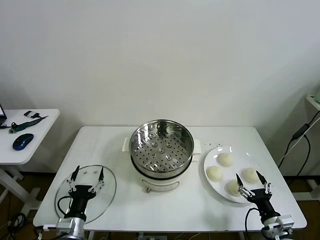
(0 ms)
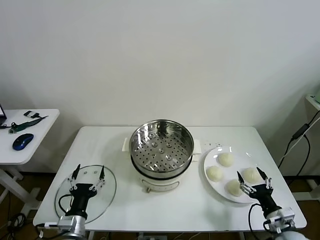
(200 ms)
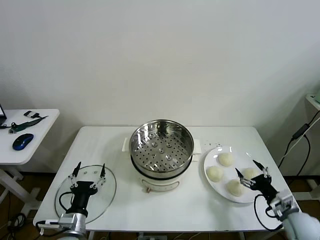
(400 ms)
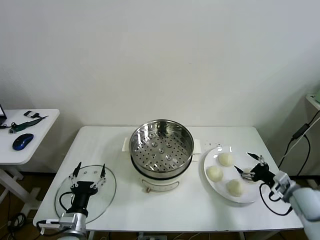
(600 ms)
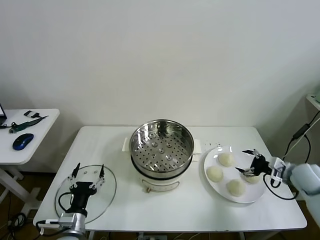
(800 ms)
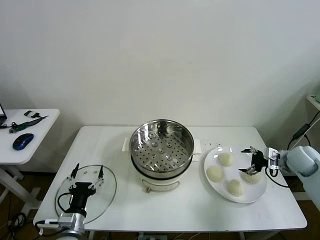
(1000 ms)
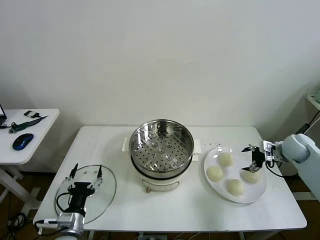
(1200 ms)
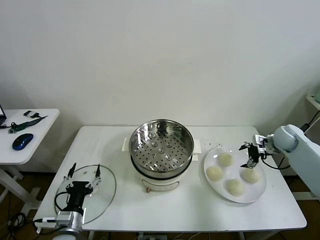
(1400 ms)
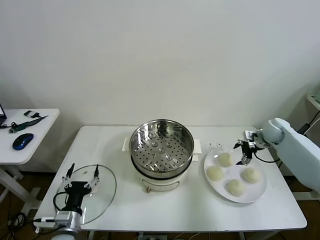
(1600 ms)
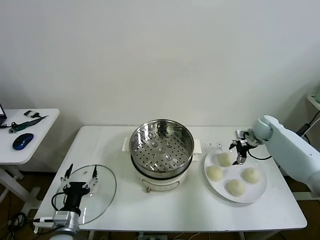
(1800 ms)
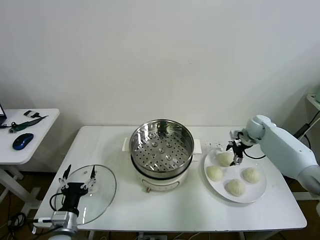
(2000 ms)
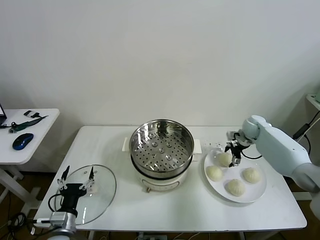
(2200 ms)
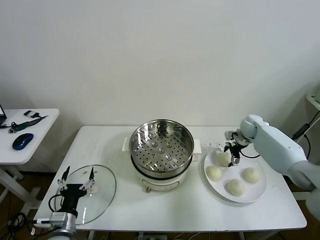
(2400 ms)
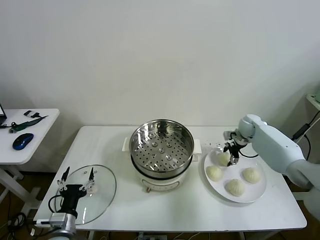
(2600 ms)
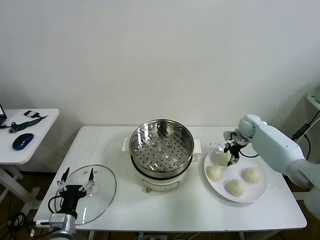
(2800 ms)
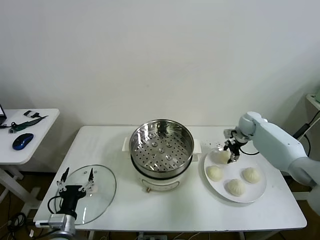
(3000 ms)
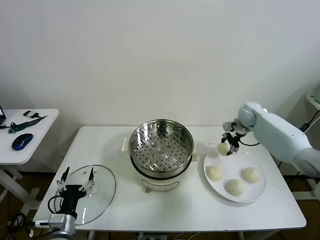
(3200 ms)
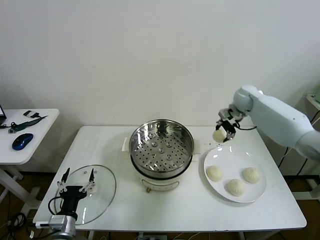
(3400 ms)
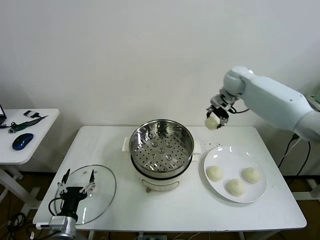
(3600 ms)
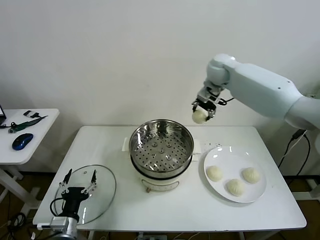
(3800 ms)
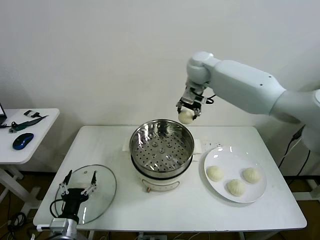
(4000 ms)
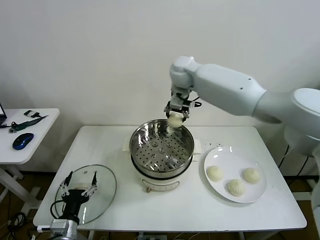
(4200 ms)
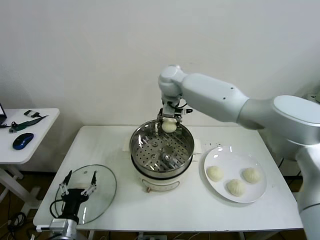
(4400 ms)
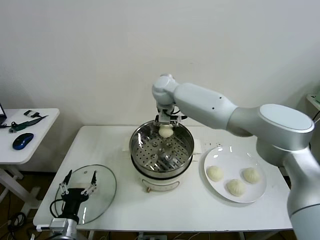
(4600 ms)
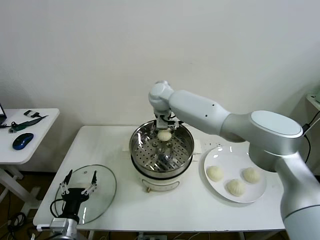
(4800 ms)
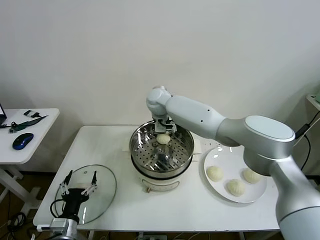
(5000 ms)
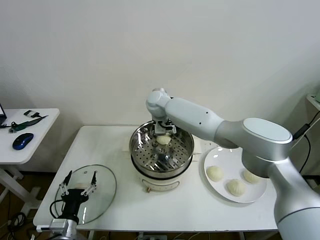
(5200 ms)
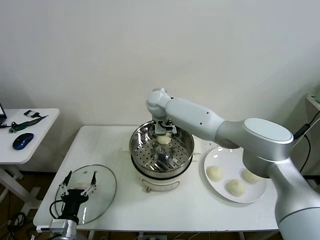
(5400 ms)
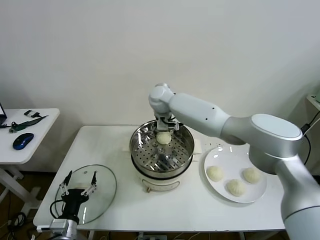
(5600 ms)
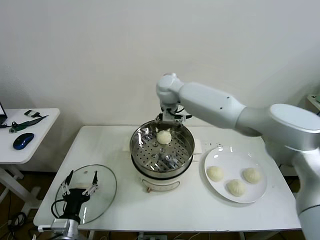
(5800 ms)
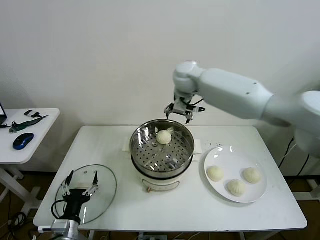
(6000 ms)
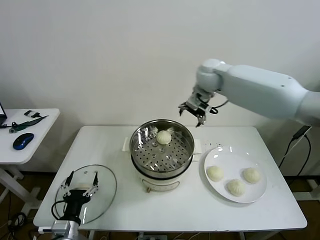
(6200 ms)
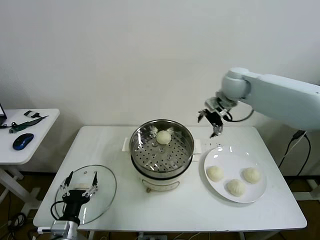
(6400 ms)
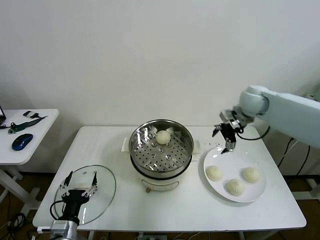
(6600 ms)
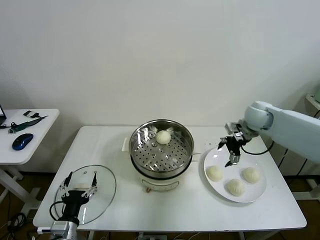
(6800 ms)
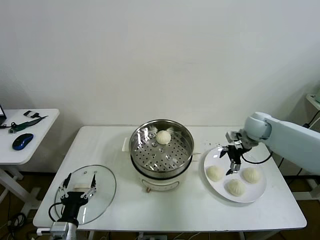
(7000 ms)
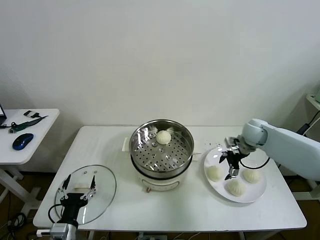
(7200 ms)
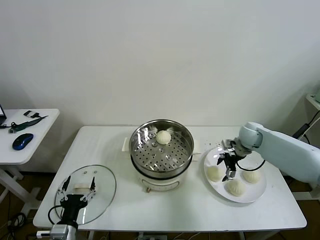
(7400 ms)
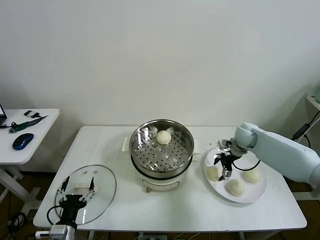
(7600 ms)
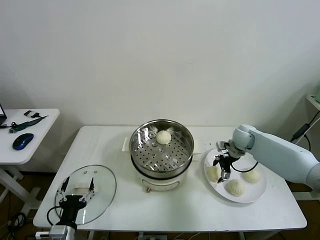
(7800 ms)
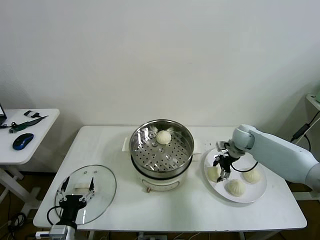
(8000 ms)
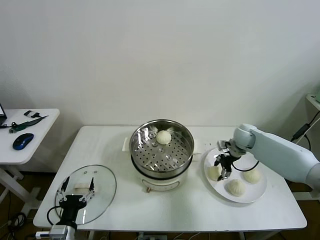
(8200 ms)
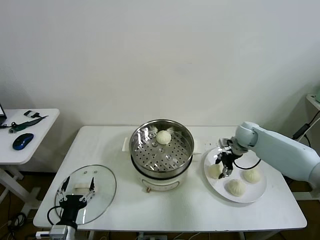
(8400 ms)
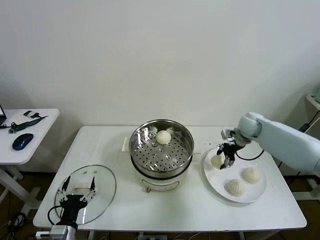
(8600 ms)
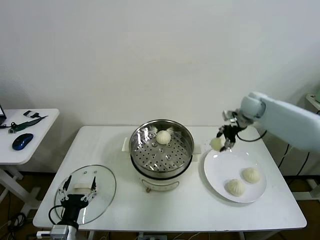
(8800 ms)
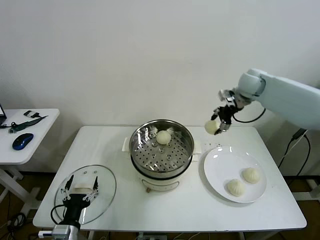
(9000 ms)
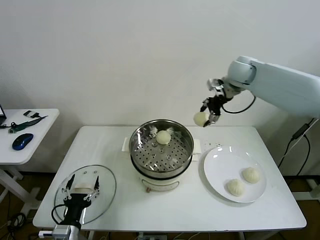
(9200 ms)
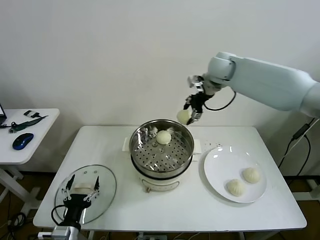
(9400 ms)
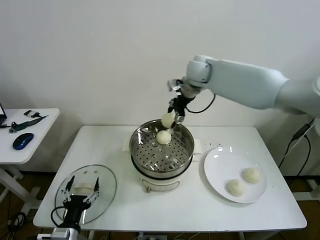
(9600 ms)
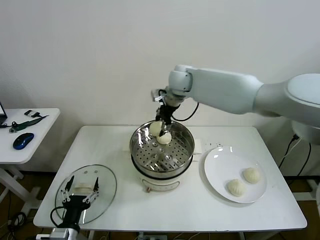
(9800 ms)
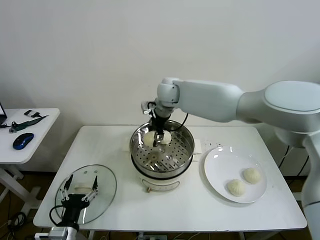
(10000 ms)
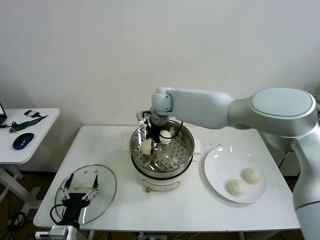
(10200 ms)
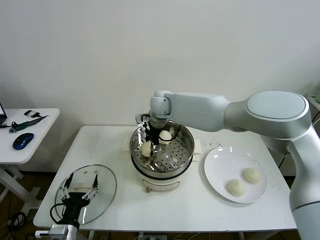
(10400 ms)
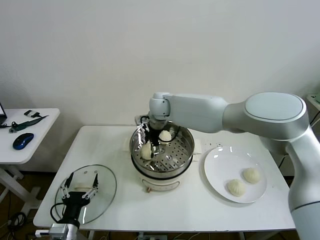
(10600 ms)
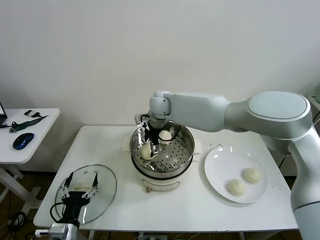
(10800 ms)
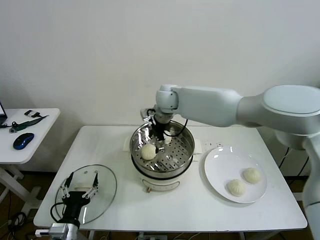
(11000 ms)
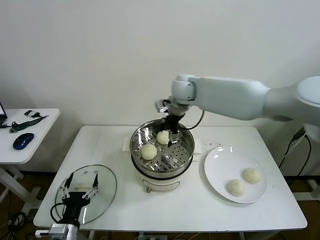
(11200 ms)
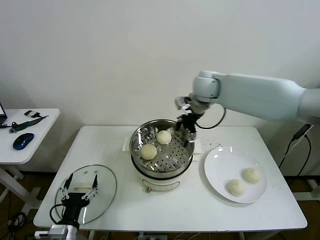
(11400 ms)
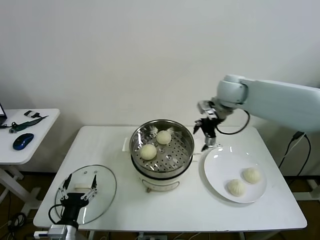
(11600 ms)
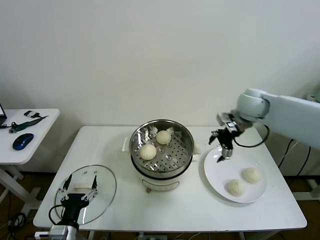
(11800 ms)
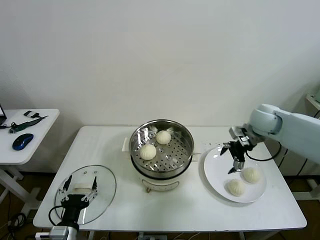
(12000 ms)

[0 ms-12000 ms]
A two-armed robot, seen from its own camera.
Task of the whole recording: take steamed baozi put them in steamer then cover it.
Step, 0 ms to 2400 ms: Grasp the baozi in the plate with right gripper.
Step, 2800 ms to 5400 ms: Place the baozi on the steamer with right gripper.
Step, 5600 ms to 8000 ms: Grasp the baozi in the plate with right gripper.
Step, 8200 ms to 10800 ms: Place the baozi on the steamer with right gripper.
1600 ms to 3000 ms: The right gripper travels to the left by roughly 5 cm, and closes.
3000 ms to 4400 ms: The right gripper heads to the left and upward, covering approximately 40 cm.
4400 ms to 6000 ms: The right gripper heads to the right and upward, covering some 10 cm, and opens its fingers.
6000 ms to 7600 ms: The right gripper moves downward and to the right, about 30 cm.
7600 ms to 9000 ms: The right gripper shifts approximately 25 cm upward, and closes.
9000 ms to 10400 ms: The right gripper is displaced to the left by some 30 cm.
10400 ms to 12000 ms: The right gripper shifts some 35 cm to the right, and opens its fingers.

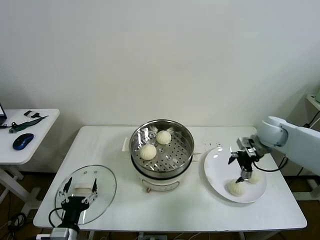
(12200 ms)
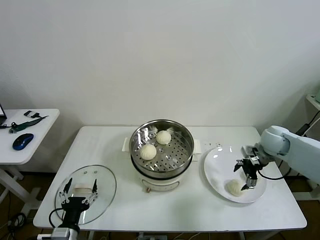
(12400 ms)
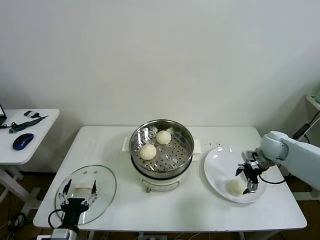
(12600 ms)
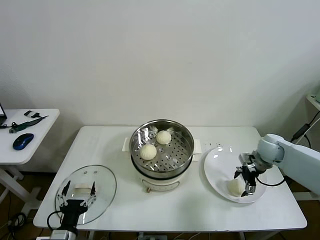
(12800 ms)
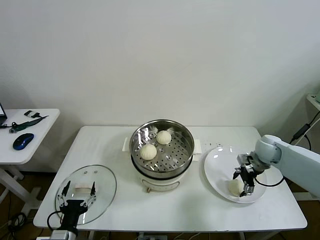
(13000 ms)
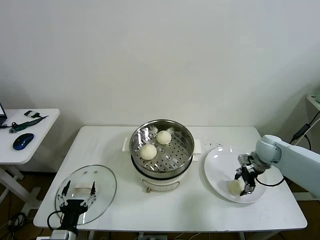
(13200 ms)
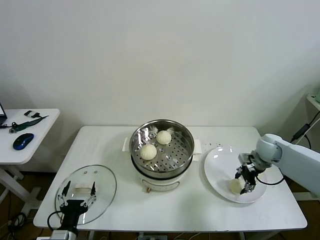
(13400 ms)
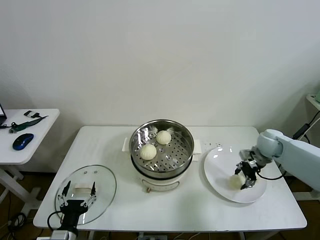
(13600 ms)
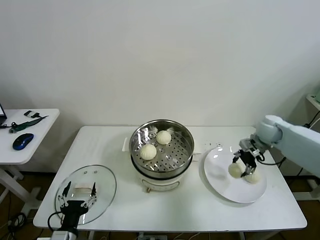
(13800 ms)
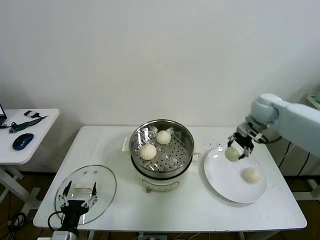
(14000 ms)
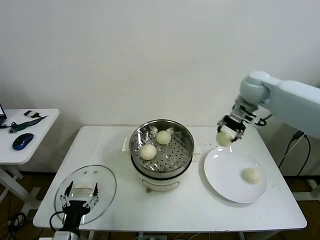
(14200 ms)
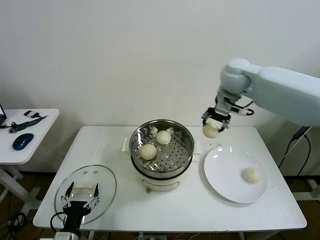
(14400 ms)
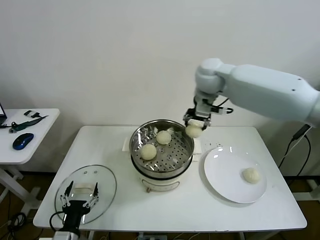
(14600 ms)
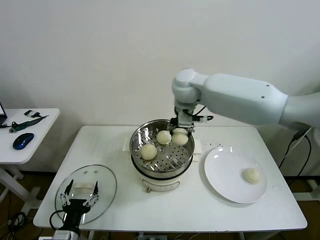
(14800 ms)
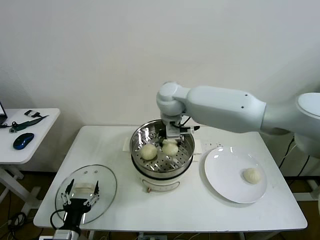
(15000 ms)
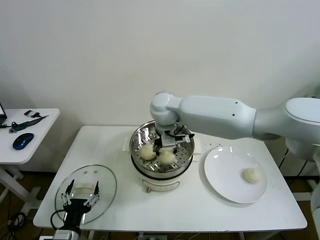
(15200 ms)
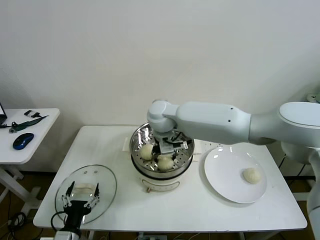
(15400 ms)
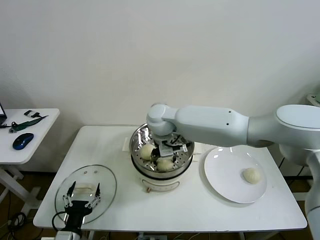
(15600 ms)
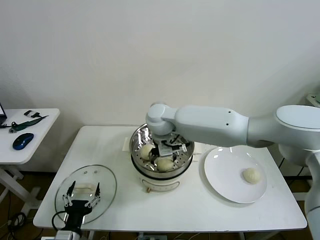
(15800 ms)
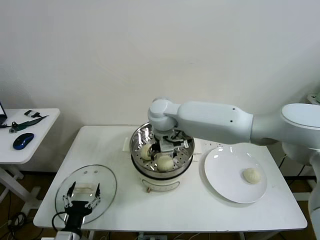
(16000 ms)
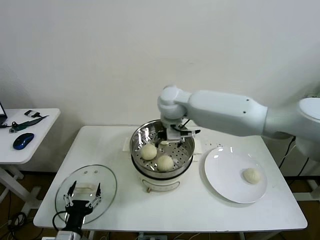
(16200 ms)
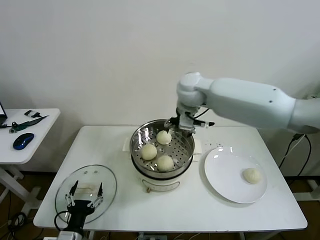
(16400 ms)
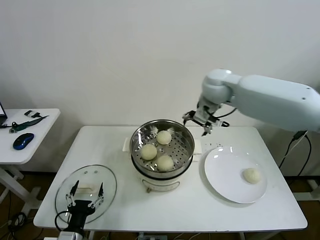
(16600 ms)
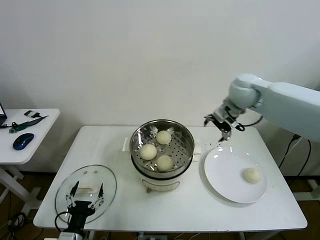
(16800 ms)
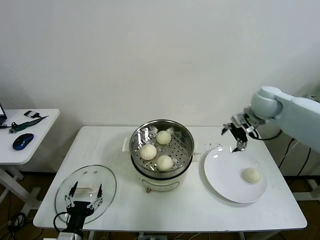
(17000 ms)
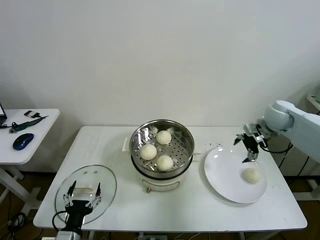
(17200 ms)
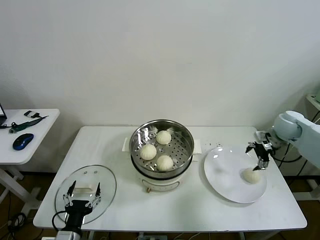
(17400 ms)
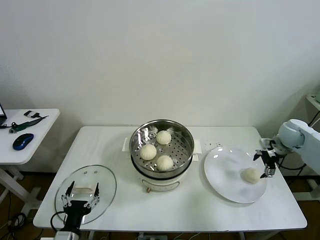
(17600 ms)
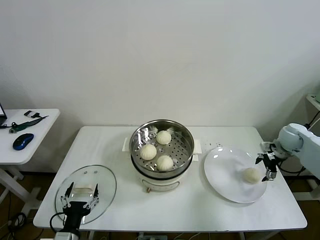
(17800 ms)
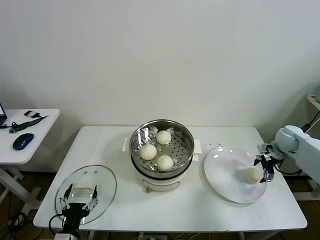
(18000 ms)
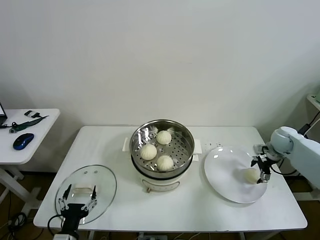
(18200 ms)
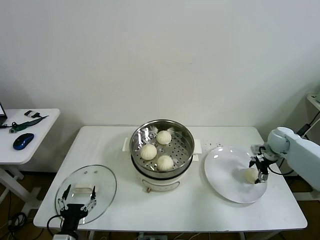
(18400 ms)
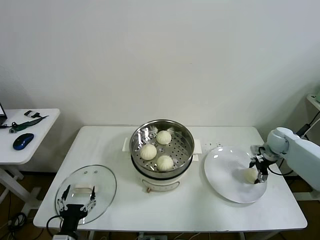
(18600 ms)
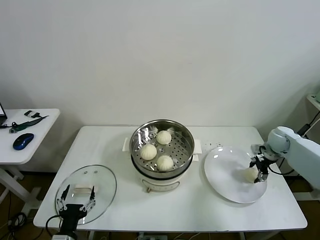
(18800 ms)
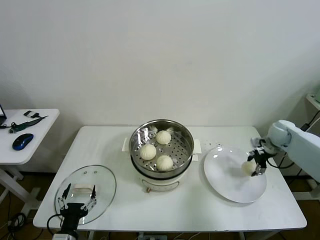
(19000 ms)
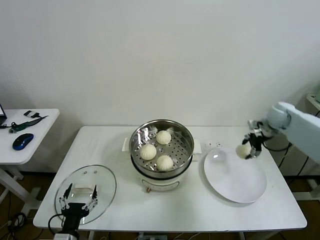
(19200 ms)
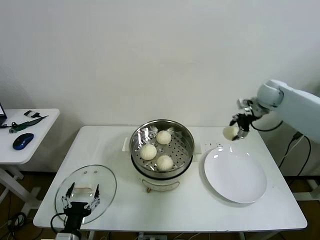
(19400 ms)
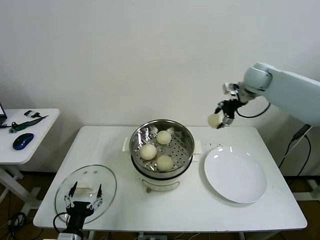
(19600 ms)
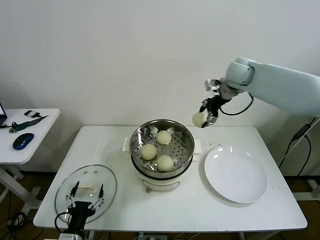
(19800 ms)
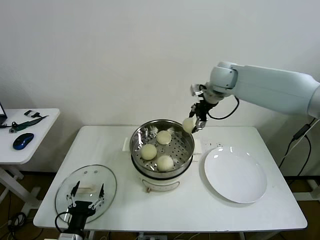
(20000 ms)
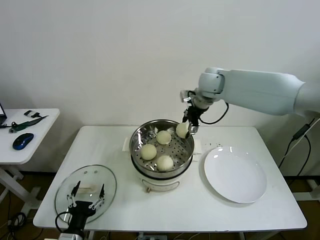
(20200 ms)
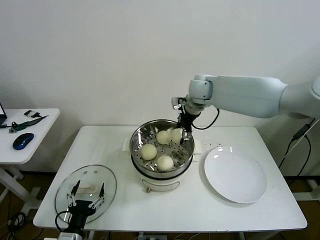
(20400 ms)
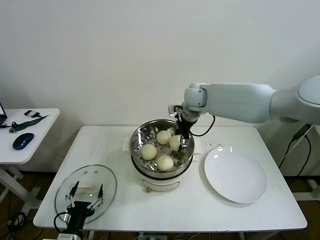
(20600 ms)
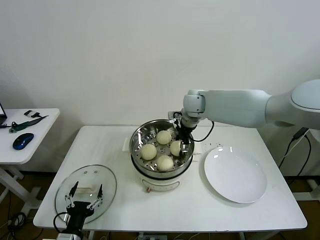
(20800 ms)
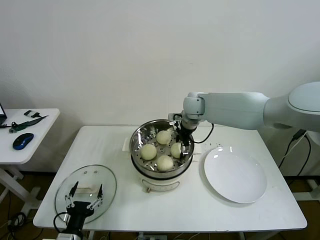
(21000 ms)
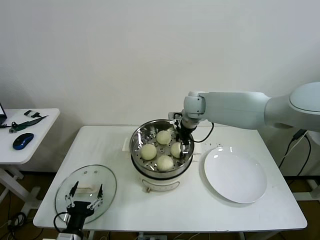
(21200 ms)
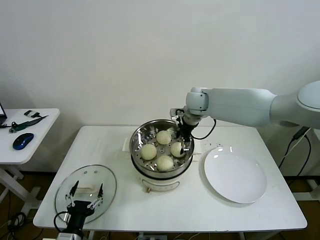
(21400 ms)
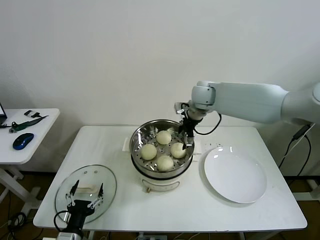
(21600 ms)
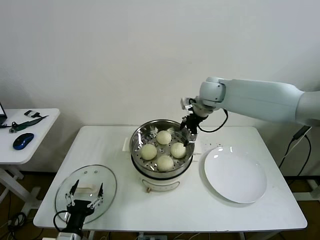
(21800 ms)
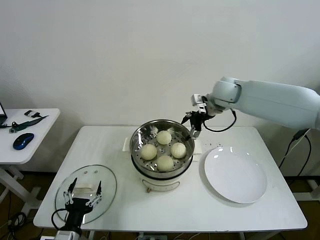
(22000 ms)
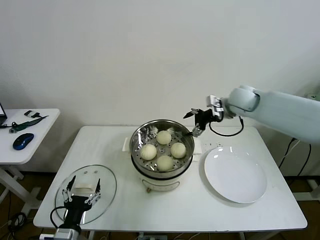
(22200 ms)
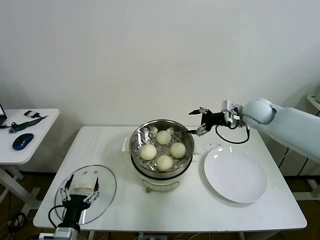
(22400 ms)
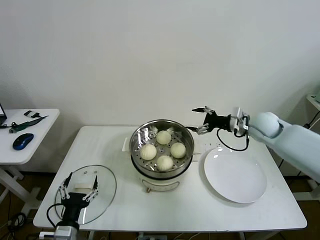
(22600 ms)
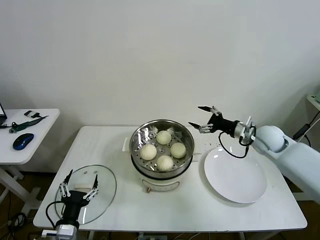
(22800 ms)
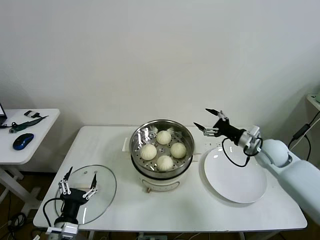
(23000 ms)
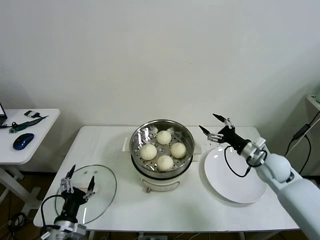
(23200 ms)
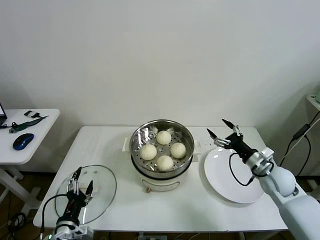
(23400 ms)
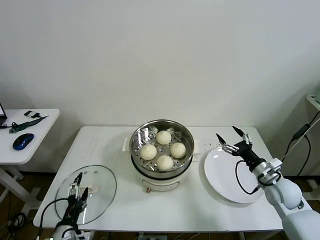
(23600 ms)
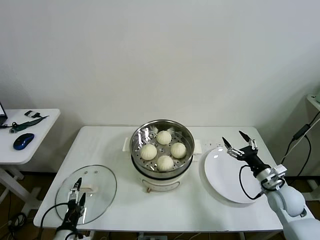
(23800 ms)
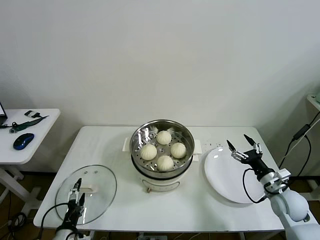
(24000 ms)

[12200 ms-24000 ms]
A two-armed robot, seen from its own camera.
Task of the whole recording: take steamed baozi put them in steamer then cover it.
Step, 13400 ms to 15800 ms: Place the baozi on the steamer with right gripper.
Step, 16000 ms to 18400 ms: Grasp the baozi in the plate with right gripper.
Step, 18600 ms to 21000 ms: Place the baozi on the steamer with right gripper.
12200 ms to 13600 ms: The right gripper closes up.
13600 ms to 15200 ms: The right gripper travels to the left by approximately 40 cm.
15200 ms to 16600 ms: The right gripper shifts some 20 cm to the right, and opens.
16600 ms to 18200 ms: The right gripper is displaced to the right and downward by some 35 cm.
18200 ms to 19600 ms: The right gripper is displaced upward and to the left by approximately 30 cm, and closes up.
19600 ms to 21000 ms: The right gripper goes approximately 20 cm to the left and downward, and opens.
21000 ms to 22600 ms: The right gripper travels to the right by about 20 cm.
22600 ms to 24000 ms: The right gripper heads backward and downward, covering roughly 25 cm. The left gripper shifts by about 5 cm.
